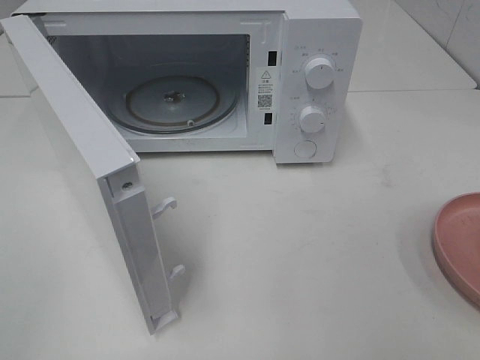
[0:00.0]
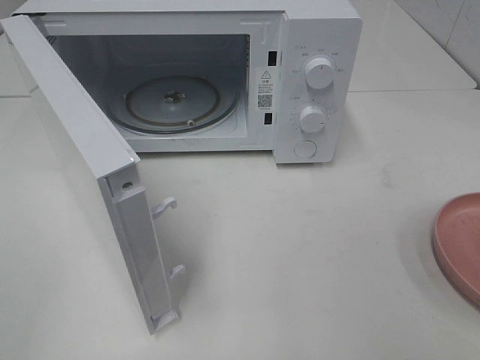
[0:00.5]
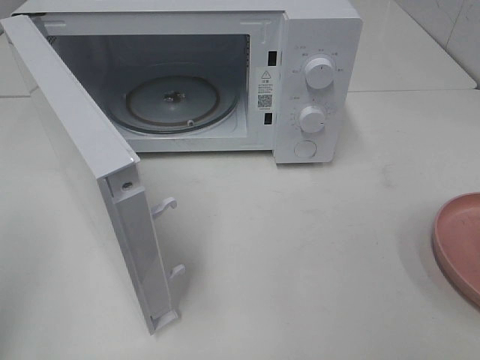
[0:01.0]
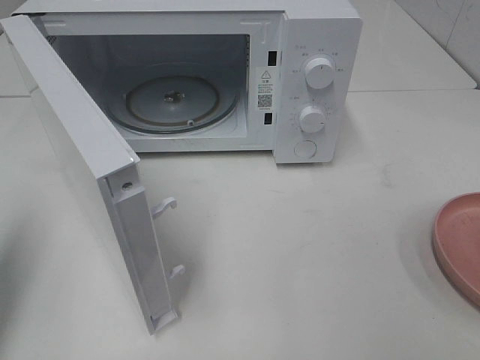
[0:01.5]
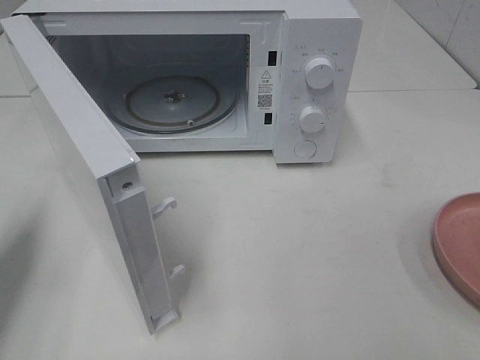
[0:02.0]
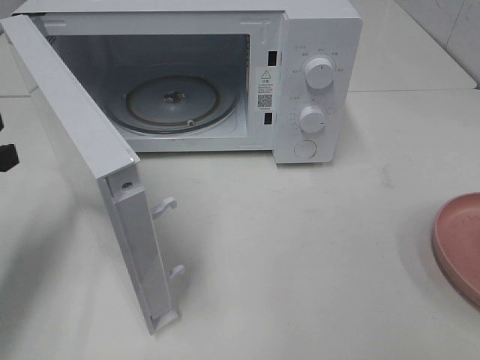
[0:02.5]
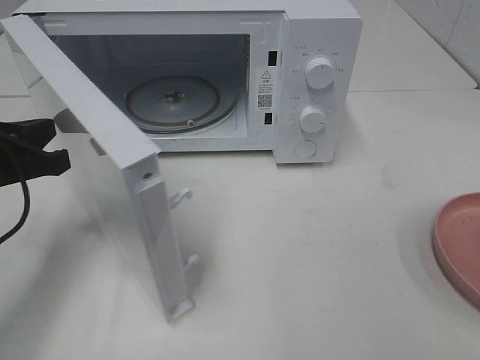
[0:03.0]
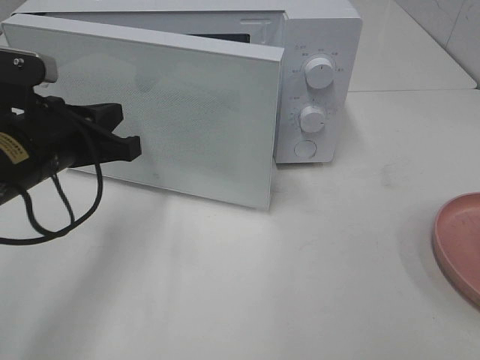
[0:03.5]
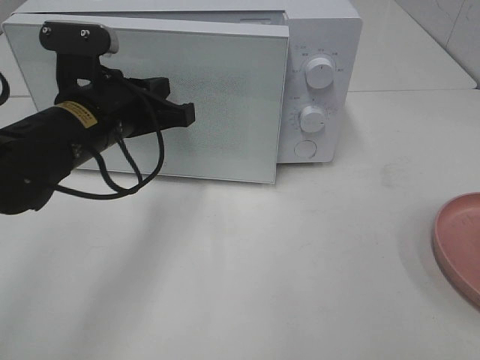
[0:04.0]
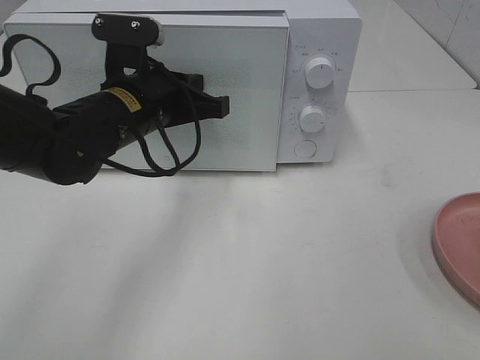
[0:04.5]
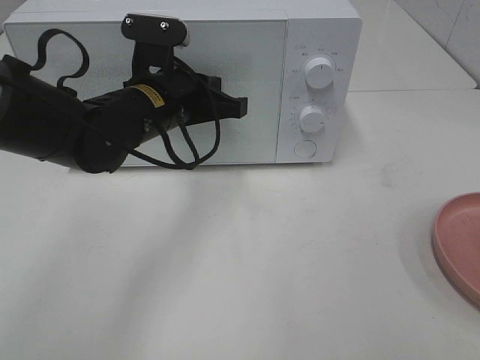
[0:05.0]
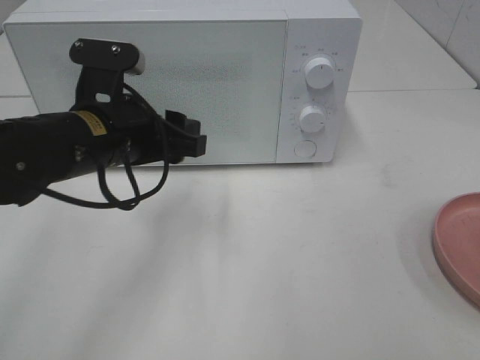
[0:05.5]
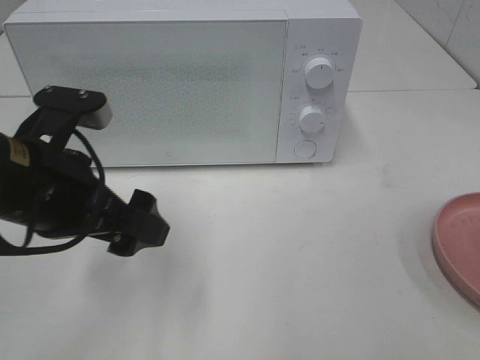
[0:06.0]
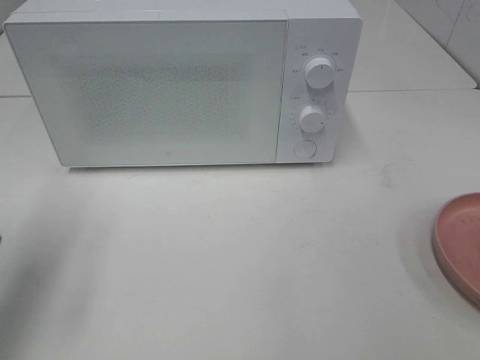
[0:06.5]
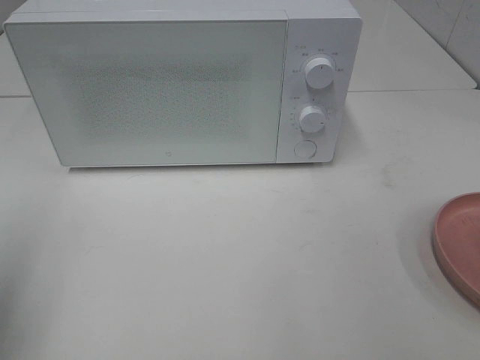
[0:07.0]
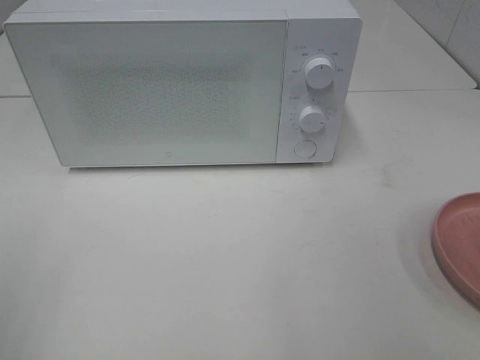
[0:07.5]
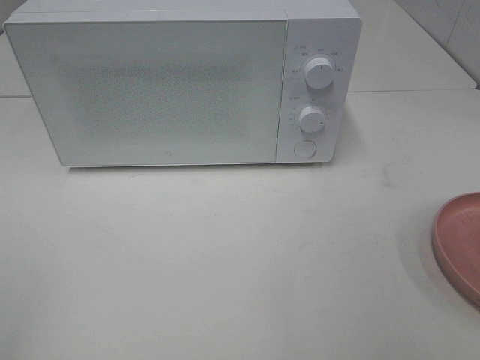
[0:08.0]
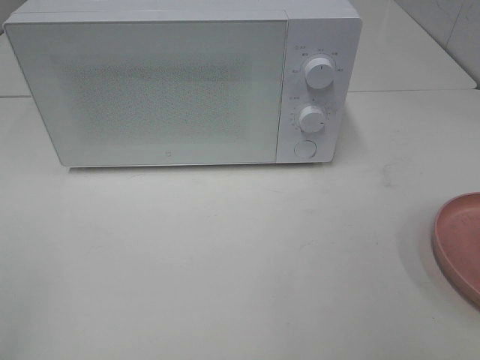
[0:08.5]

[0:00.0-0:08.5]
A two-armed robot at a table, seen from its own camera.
Task of the whole recording: Heat the burger.
Step, 0.0 to 5.5 s: Left hand: close the microwave door.
0.0 to 2.0 s: The left gripper goes approximately 20 cm forward, and closes its fingers.
2.0 to 4.0 s: The left gripper goes roughly 20 cm to the right and forward.
4.0 to 6.5 s: The left gripper travels to the left and backward by roughly 20 cm, and opens up.
6.5 to 8.5 s: The left gripper is displaced backward by approximately 20 cm.

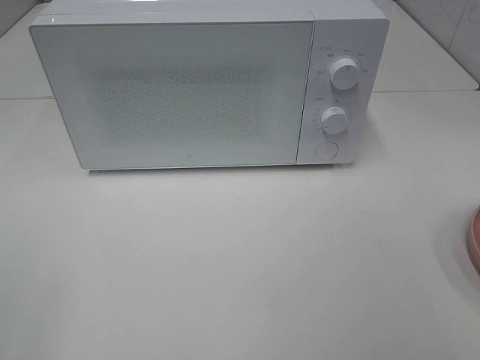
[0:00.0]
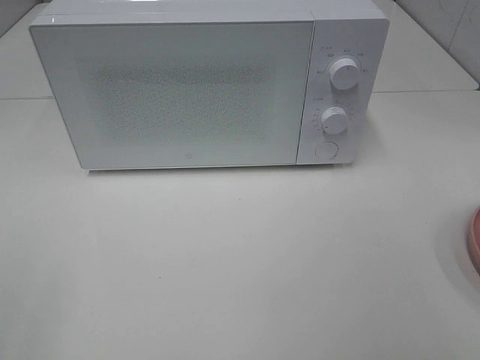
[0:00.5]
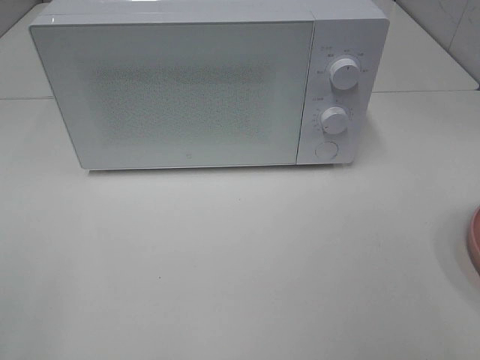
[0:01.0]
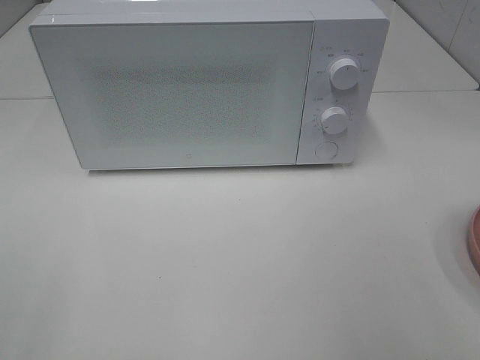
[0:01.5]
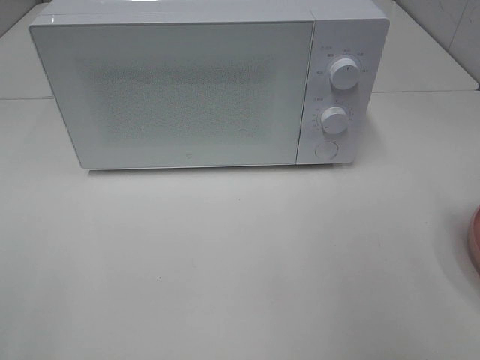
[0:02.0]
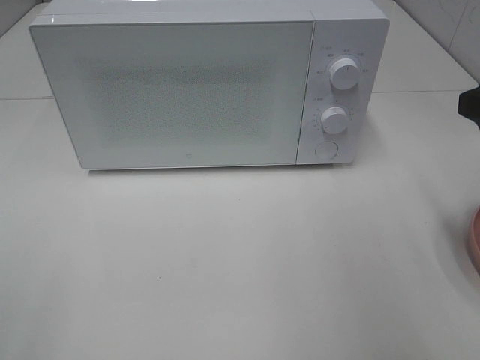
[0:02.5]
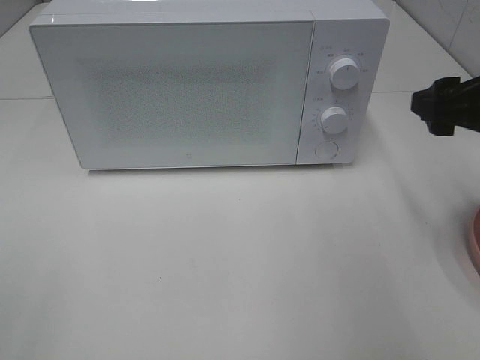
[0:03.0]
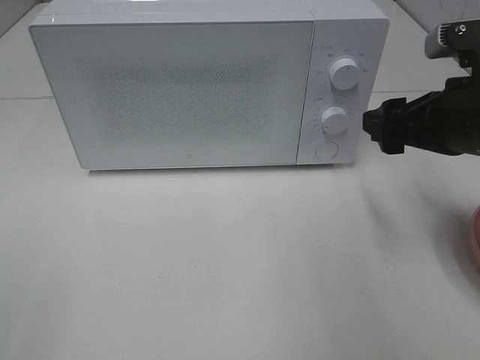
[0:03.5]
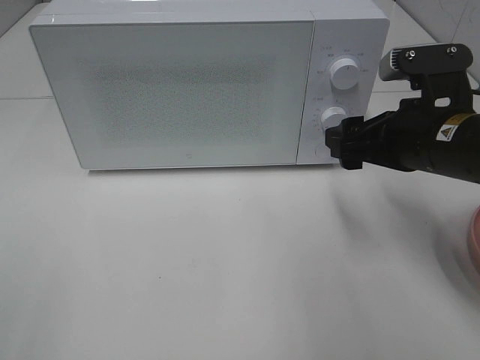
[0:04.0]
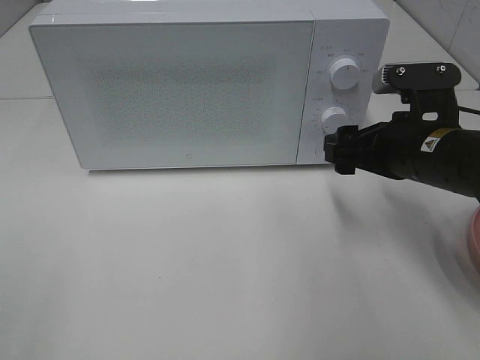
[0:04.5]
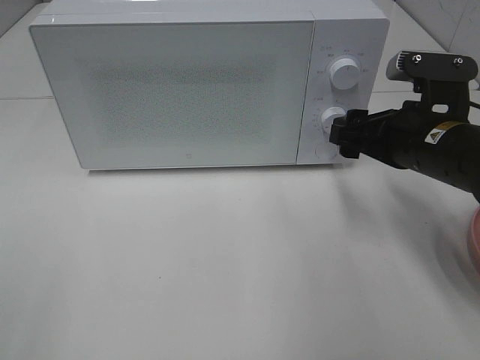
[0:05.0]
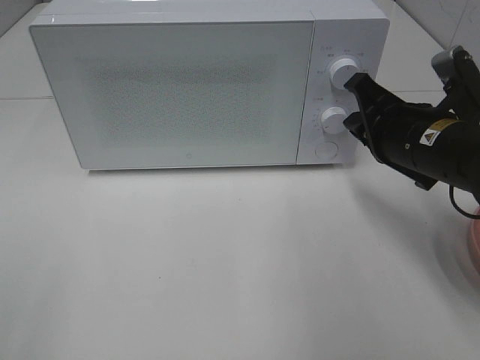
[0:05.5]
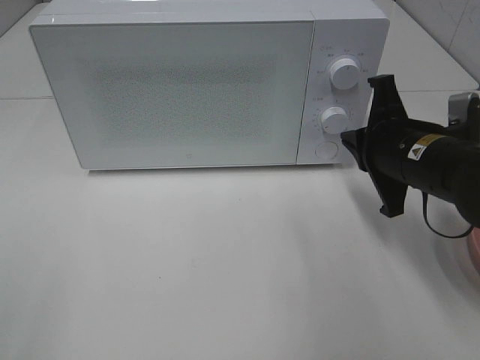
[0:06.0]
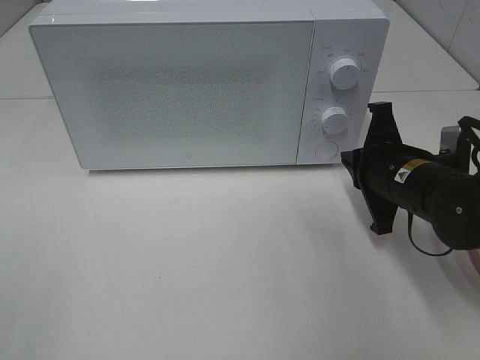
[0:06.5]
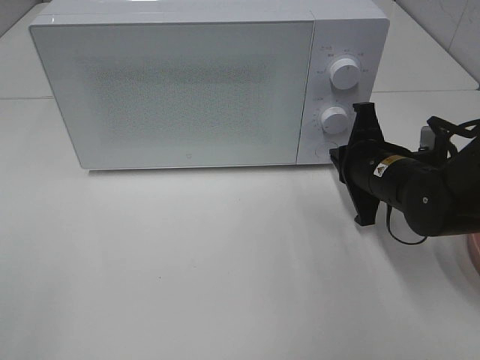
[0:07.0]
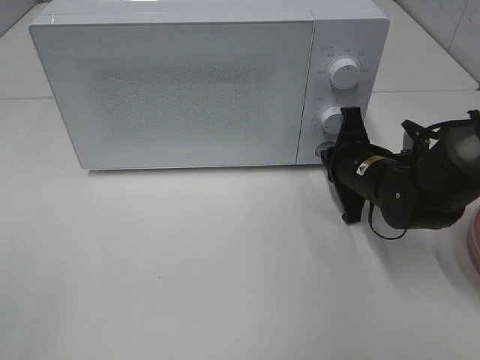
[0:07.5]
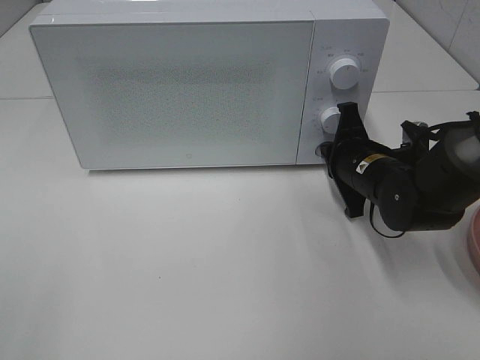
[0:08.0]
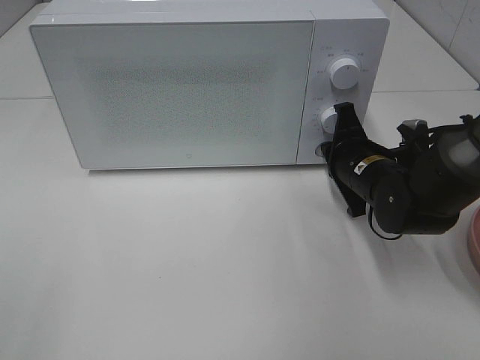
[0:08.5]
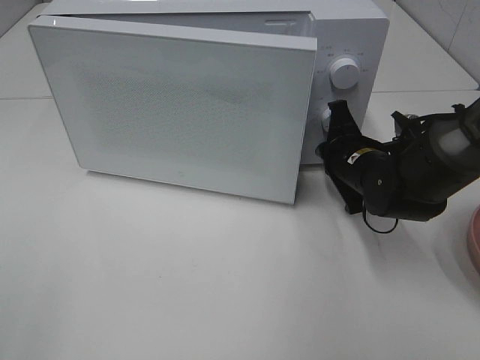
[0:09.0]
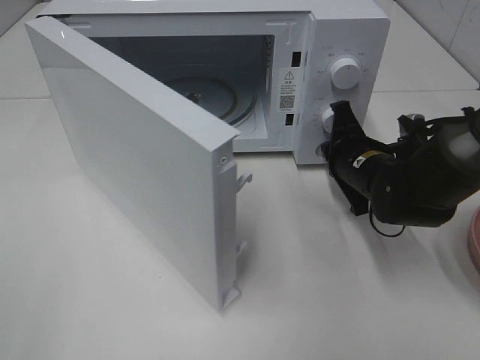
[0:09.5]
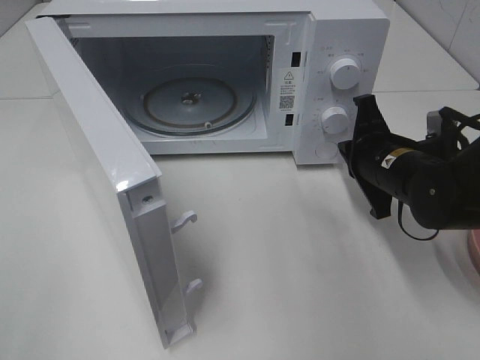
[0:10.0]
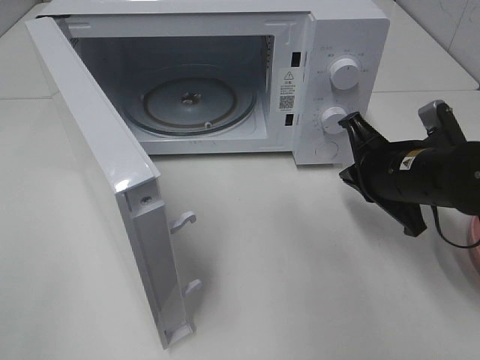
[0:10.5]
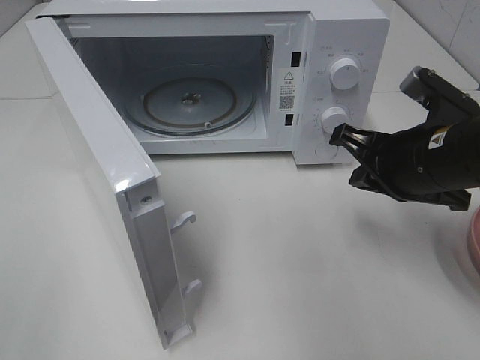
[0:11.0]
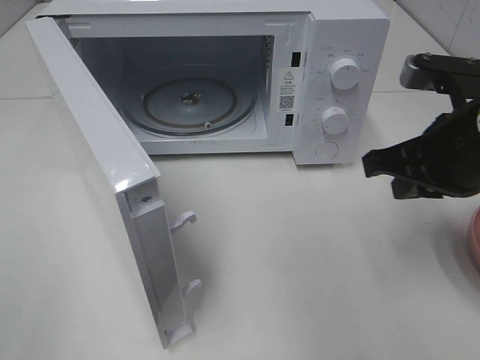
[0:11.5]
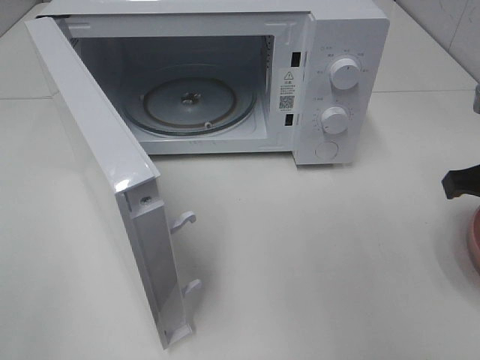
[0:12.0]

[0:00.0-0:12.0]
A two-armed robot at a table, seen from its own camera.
Task of the whole recording: Heat the burger.
Step, 0.0 to 9.5 s: Right hand: press the switch.
2.0 to 4.0 s: The right gripper travels downward, forward and to the left by roughly 20 cm.
4.0 to 6.0 s: The right gripper closes its fingers.
6.0 to 8.0 s: The right gripper is displaced downward and forward by roughly 10 cm.
10.0 to 12.0 s: The right gripper heads upward, to the right and backward, covering roughly 15 cm.

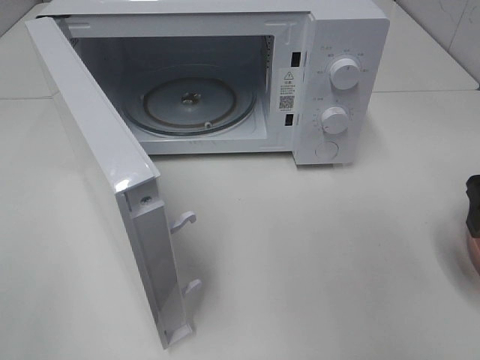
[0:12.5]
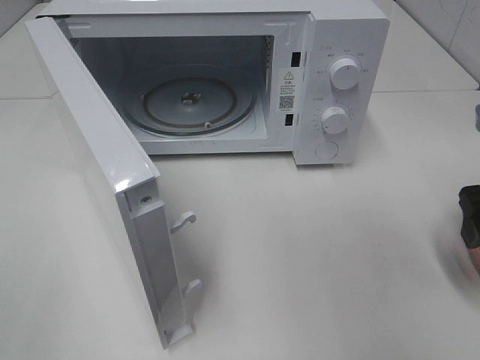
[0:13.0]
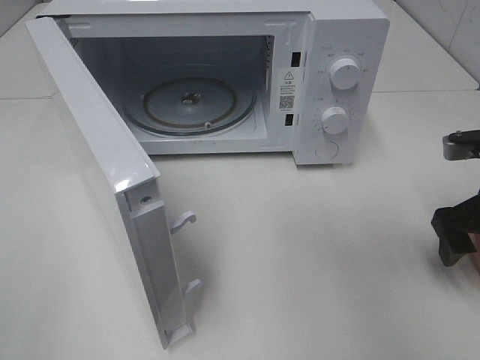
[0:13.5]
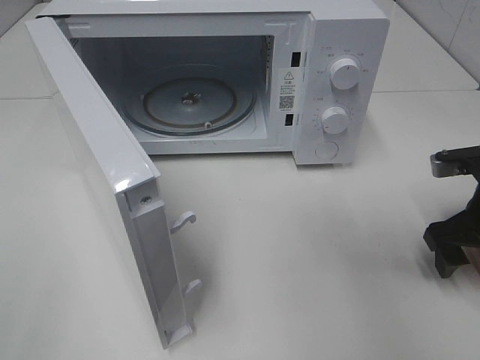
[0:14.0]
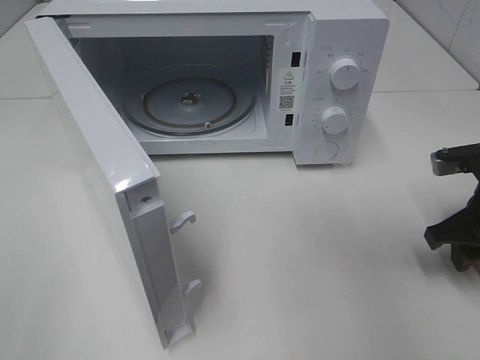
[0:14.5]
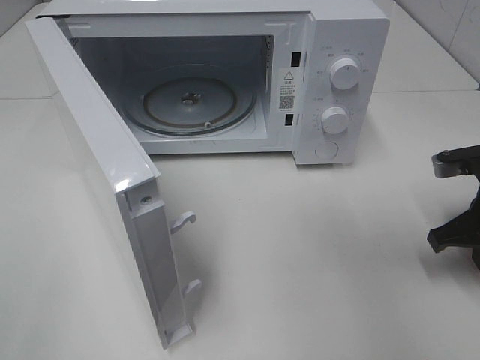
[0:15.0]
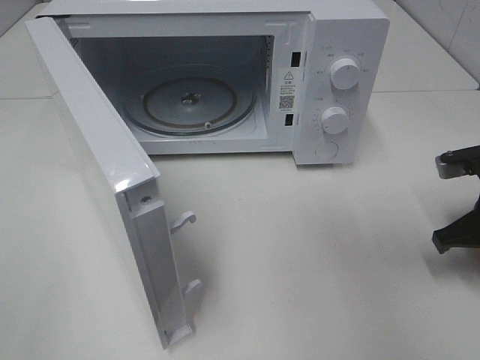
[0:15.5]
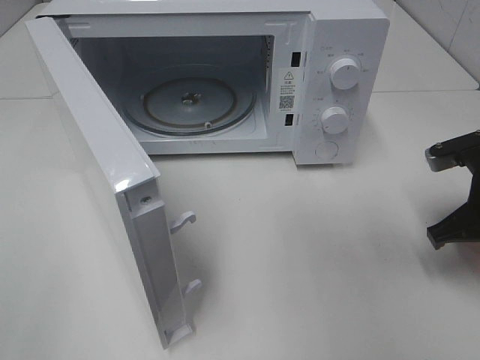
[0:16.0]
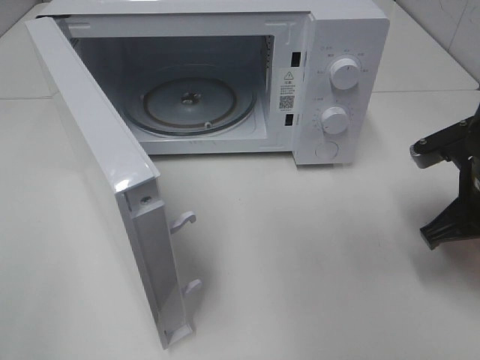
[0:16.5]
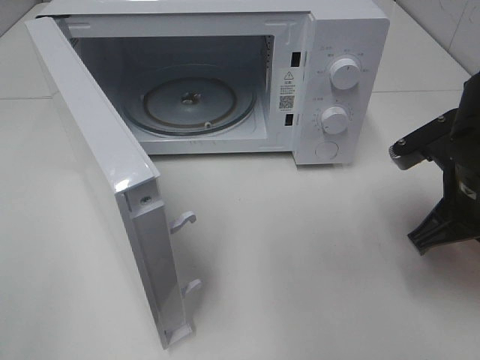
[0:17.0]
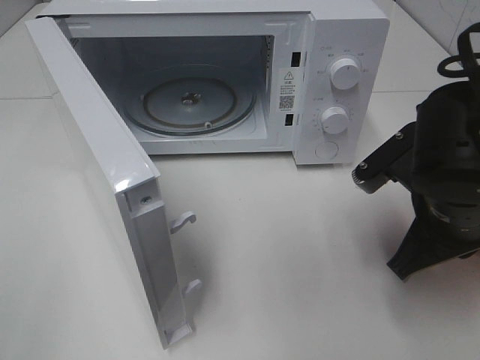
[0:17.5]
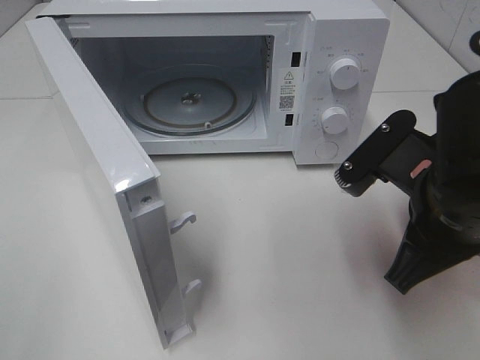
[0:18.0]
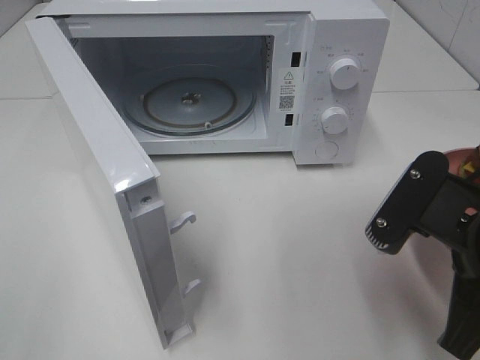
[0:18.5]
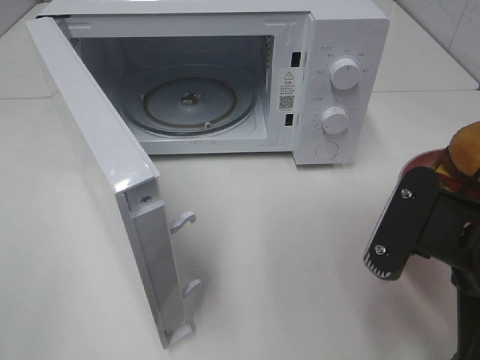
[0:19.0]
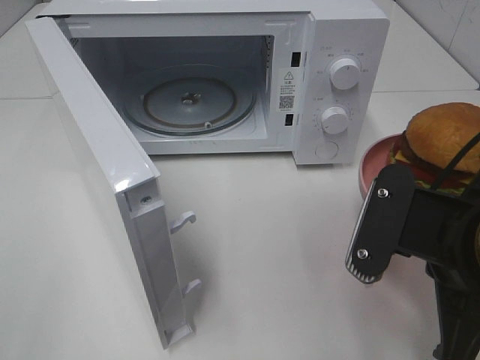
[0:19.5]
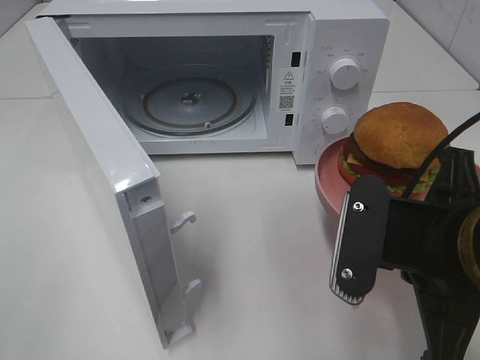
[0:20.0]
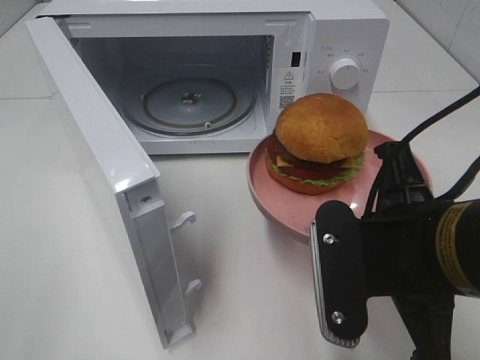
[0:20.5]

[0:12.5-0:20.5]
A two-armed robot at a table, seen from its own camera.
Task of the whole recording: Heat the burger.
Step, 12.5 to 15.0 s: Right hand: grab the plate with the hamburger.
12.5 to 14.5 s: The right gripper shifts approximately 10 cm downward, and closes.
14.5 to 16.5 s: The right gripper changes place by some 5 cm, and closes its fingers.
16.5 to 18.5 s: The right gripper goes about 15 cm backward and to the left.
